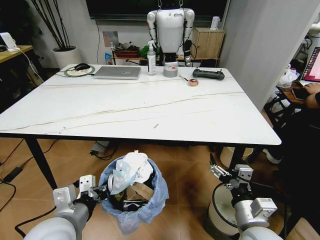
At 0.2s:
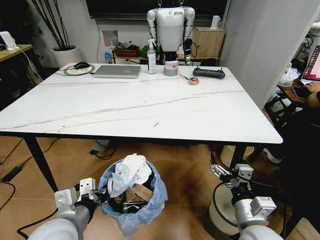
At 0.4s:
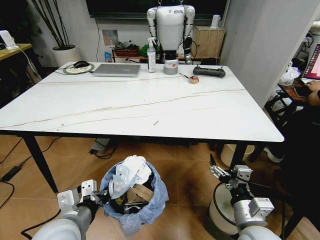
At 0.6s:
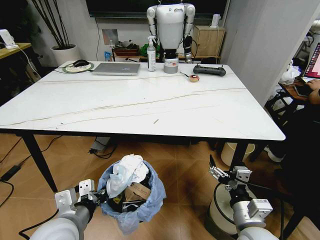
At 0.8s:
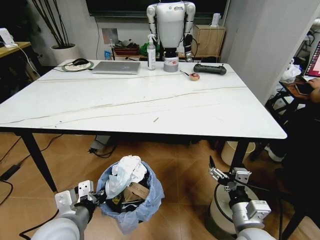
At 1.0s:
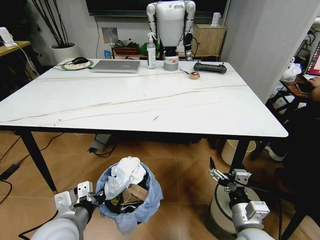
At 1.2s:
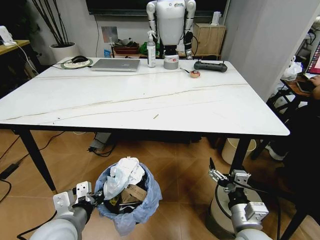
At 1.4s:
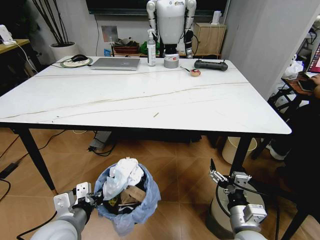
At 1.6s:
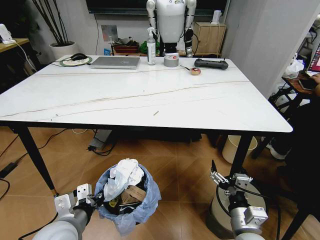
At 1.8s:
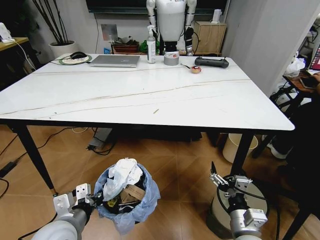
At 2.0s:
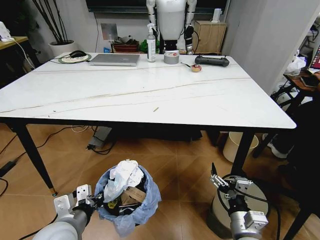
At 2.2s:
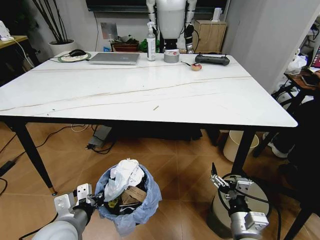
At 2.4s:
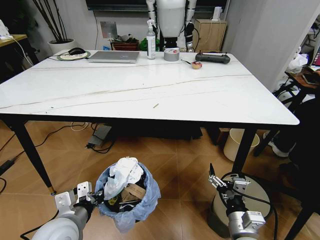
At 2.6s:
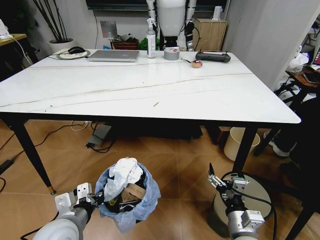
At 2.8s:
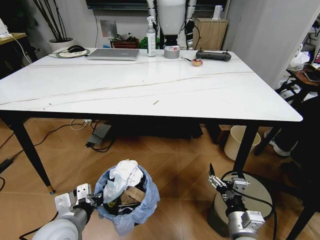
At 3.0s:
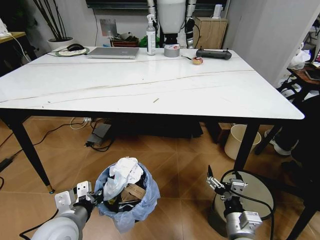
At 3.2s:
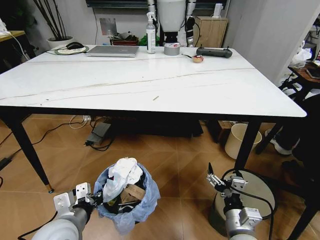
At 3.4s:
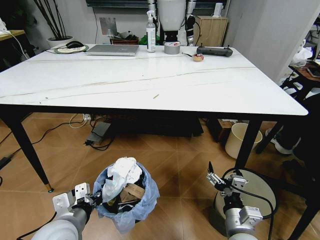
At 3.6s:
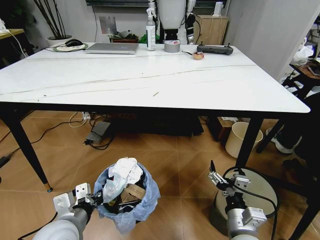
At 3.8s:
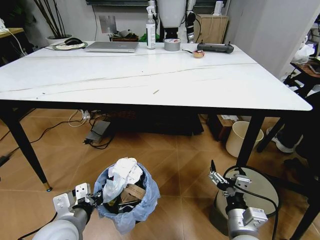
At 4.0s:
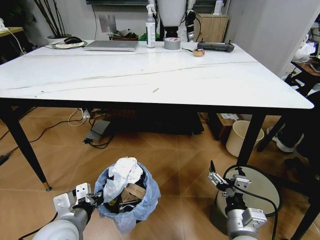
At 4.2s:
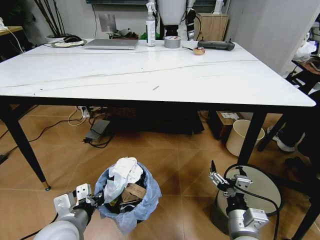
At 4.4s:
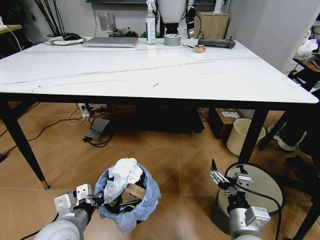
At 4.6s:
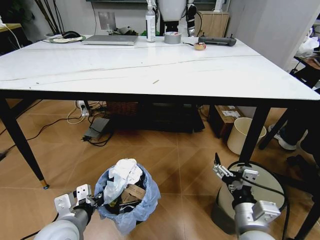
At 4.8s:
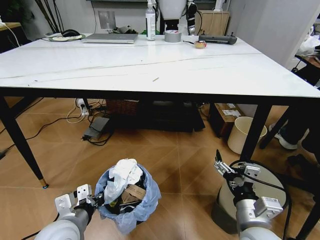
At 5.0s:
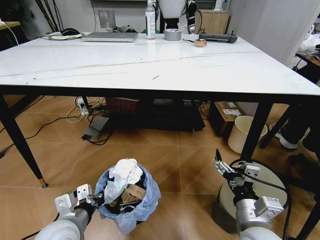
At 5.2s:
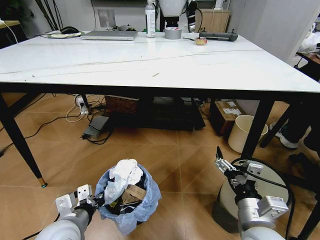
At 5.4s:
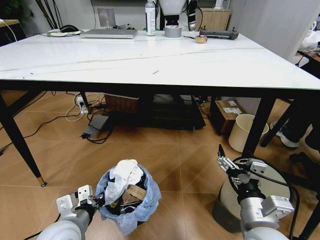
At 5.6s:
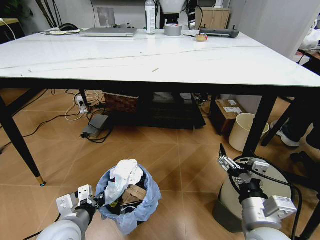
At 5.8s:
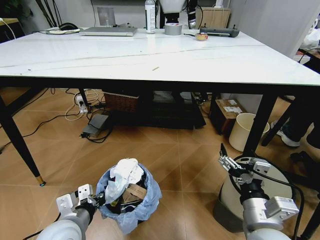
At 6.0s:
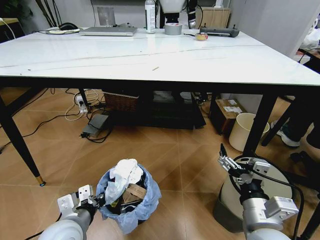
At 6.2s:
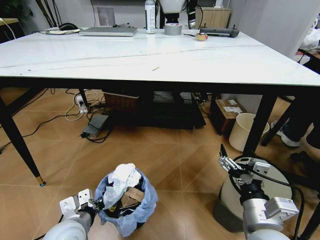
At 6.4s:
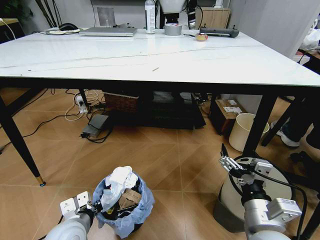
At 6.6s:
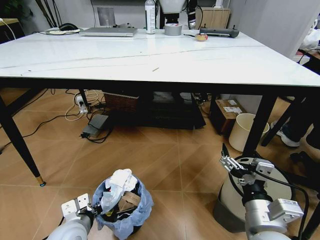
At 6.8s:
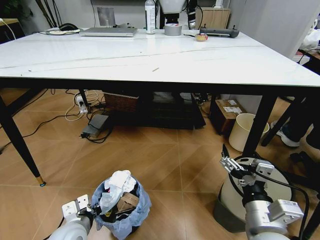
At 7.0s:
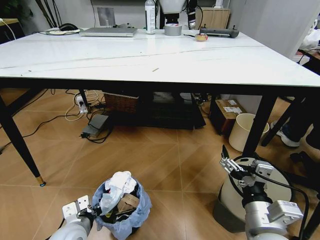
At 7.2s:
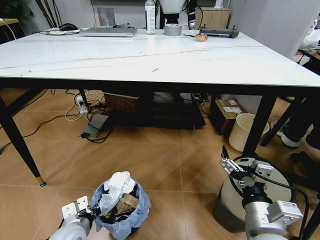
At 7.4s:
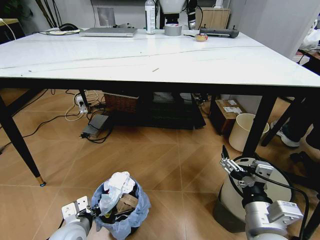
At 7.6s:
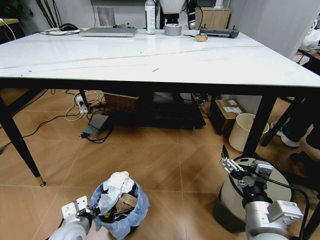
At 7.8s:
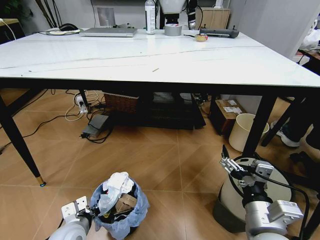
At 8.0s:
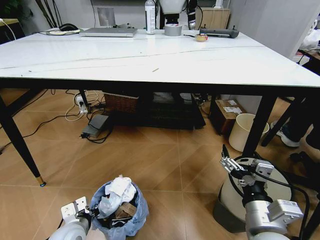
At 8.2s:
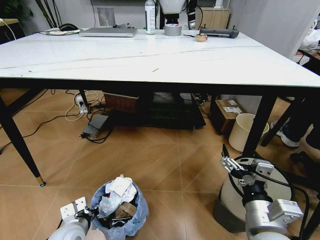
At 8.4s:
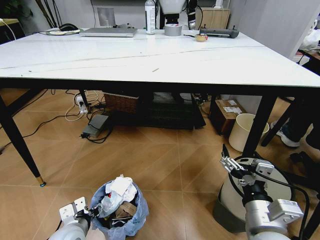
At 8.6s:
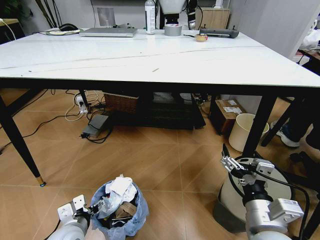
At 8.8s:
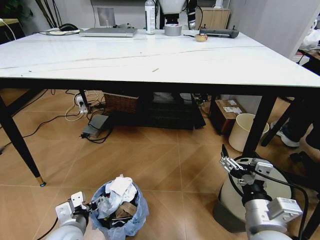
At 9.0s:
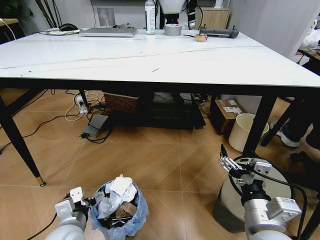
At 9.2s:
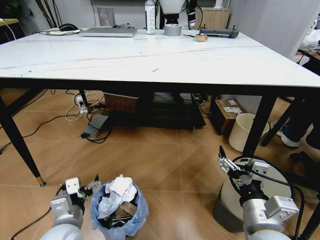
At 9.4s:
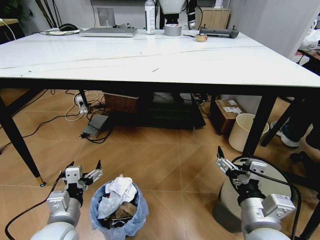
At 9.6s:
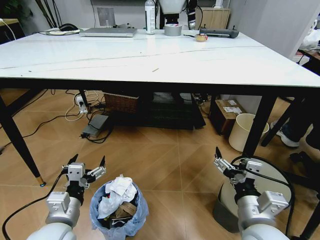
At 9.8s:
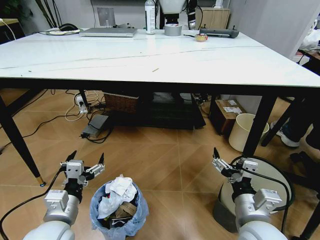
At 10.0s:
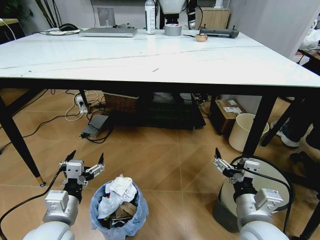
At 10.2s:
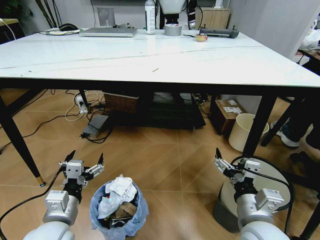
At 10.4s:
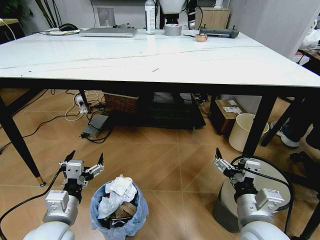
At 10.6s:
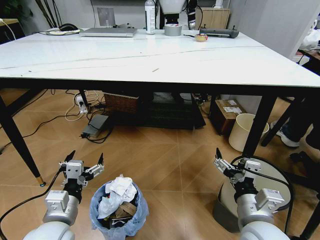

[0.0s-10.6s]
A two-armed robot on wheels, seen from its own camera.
Task of the whole recording: Pick up the trash bin and place the trash from the table into it.
0.0s to 1.6s: The left gripper travels downward by some 5 cm.
3.0s to 4.6s: The right gripper is displaced upward by roughly 5 cm.
6.0s to 7.6s: The left gripper shifts some 10 cm downward.
7.6s to 9.0s: The left gripper opens up.
9.0s to 10.6s: The left gripper moves upward, some 5 cm.
